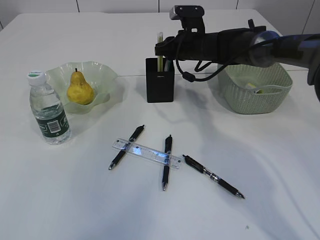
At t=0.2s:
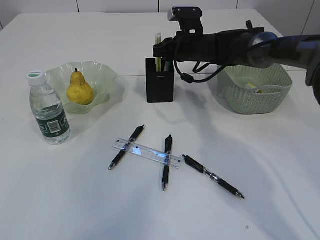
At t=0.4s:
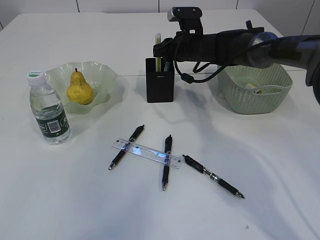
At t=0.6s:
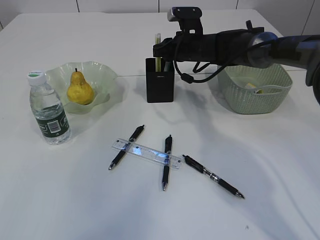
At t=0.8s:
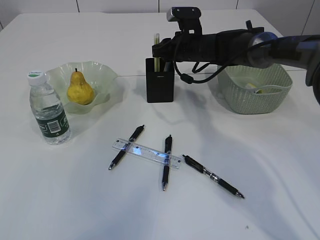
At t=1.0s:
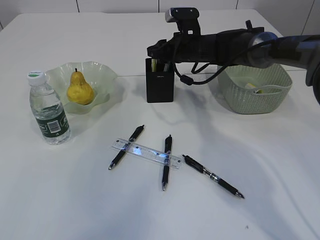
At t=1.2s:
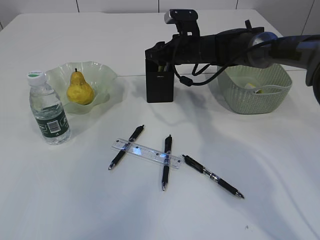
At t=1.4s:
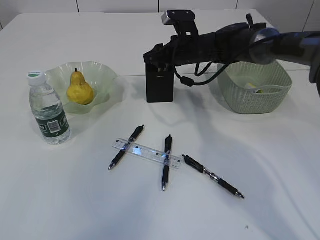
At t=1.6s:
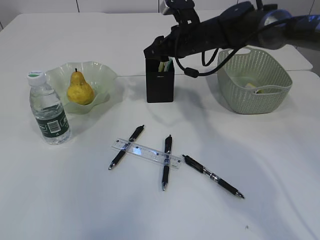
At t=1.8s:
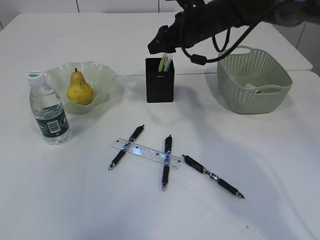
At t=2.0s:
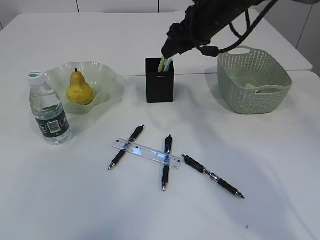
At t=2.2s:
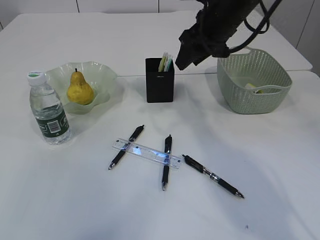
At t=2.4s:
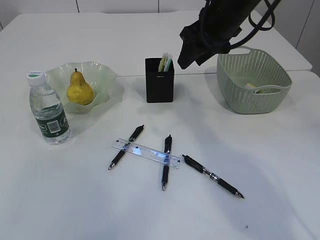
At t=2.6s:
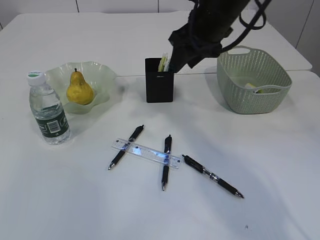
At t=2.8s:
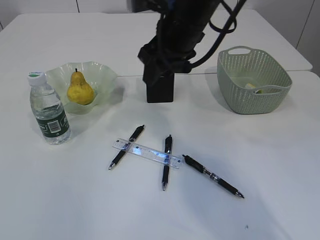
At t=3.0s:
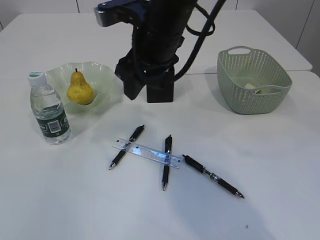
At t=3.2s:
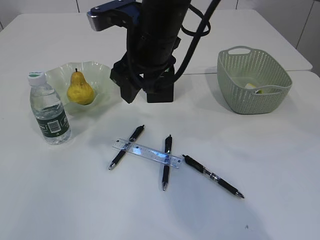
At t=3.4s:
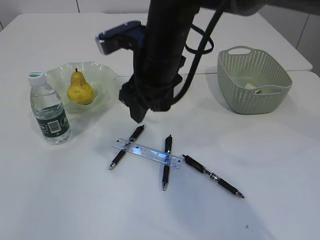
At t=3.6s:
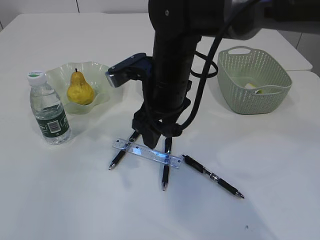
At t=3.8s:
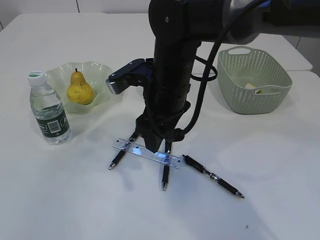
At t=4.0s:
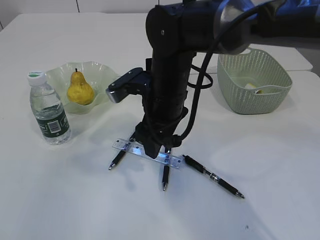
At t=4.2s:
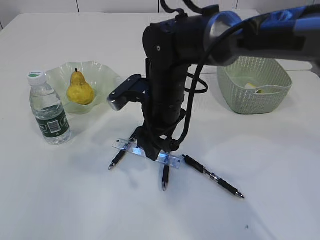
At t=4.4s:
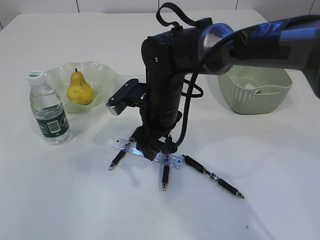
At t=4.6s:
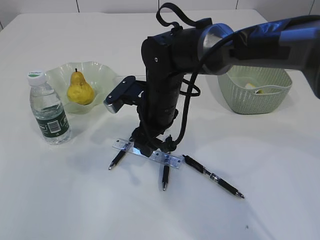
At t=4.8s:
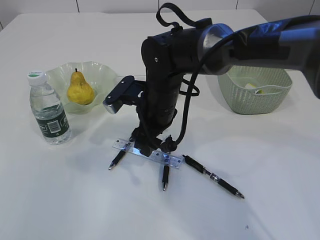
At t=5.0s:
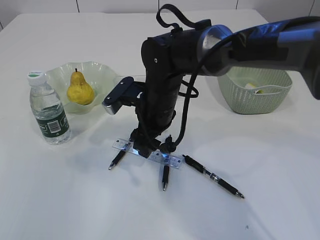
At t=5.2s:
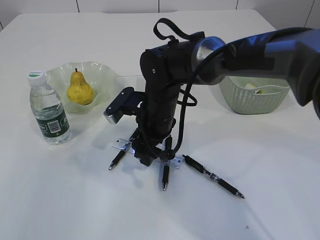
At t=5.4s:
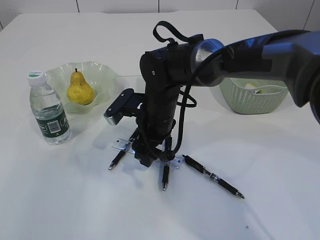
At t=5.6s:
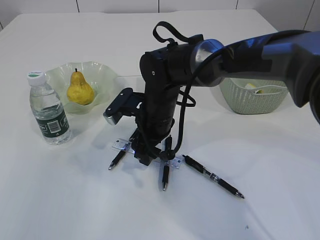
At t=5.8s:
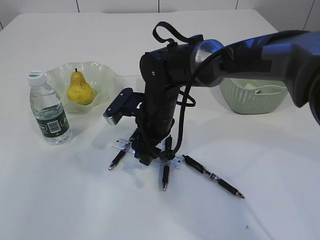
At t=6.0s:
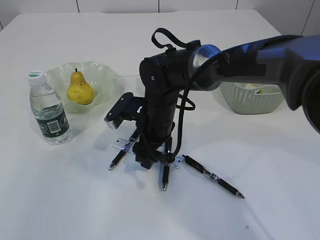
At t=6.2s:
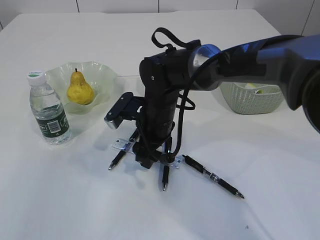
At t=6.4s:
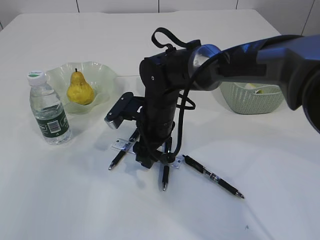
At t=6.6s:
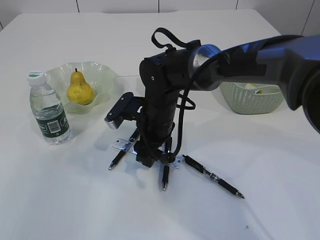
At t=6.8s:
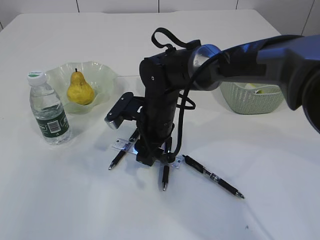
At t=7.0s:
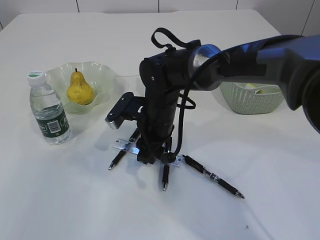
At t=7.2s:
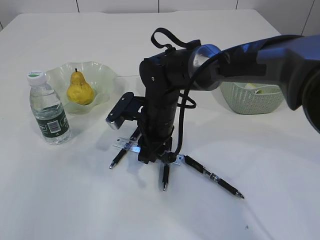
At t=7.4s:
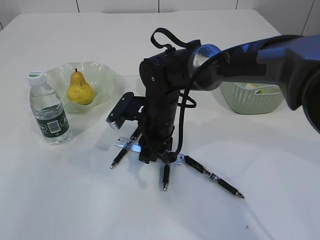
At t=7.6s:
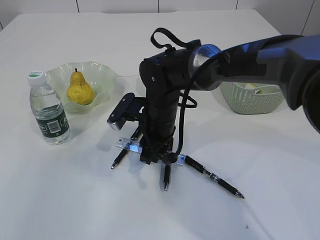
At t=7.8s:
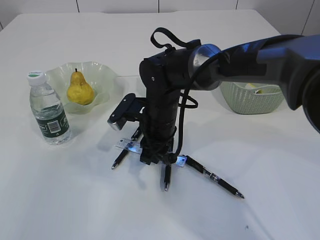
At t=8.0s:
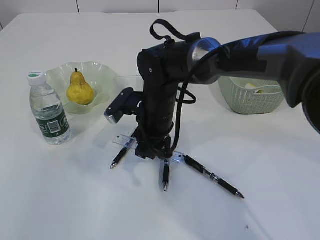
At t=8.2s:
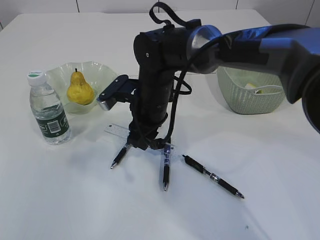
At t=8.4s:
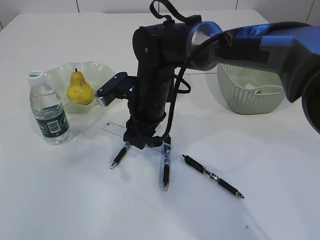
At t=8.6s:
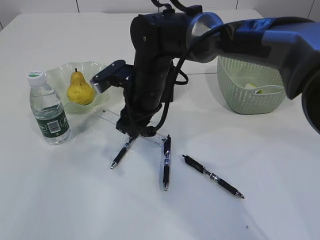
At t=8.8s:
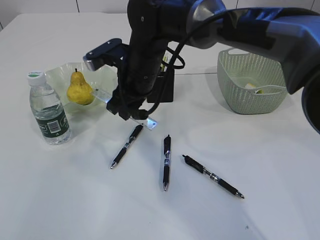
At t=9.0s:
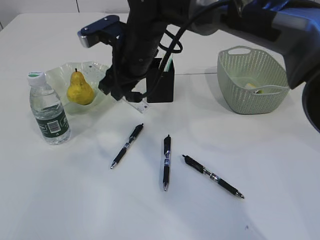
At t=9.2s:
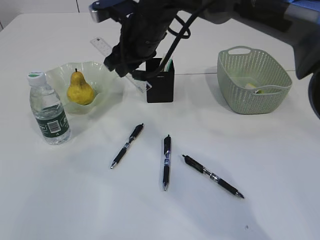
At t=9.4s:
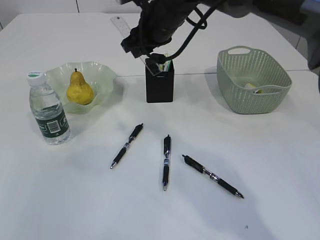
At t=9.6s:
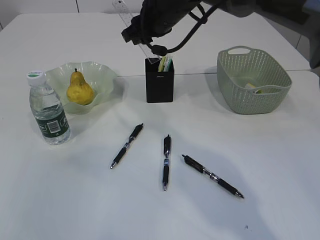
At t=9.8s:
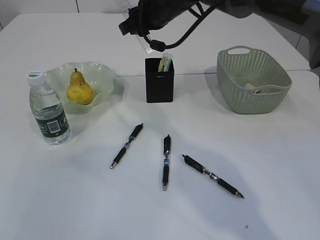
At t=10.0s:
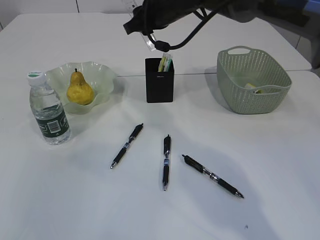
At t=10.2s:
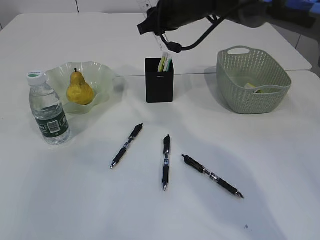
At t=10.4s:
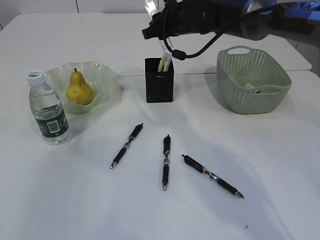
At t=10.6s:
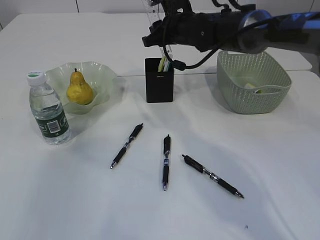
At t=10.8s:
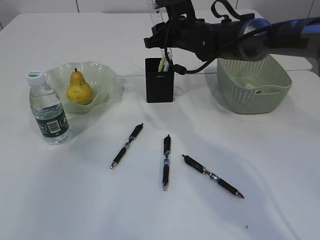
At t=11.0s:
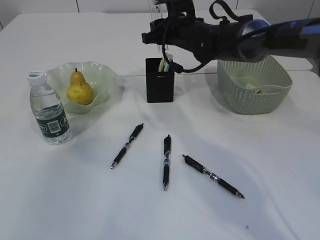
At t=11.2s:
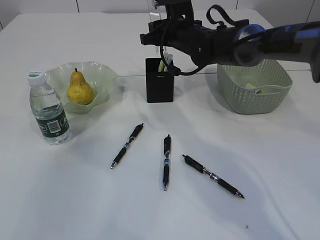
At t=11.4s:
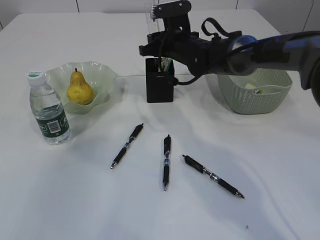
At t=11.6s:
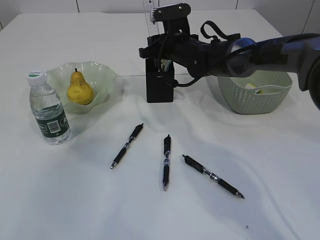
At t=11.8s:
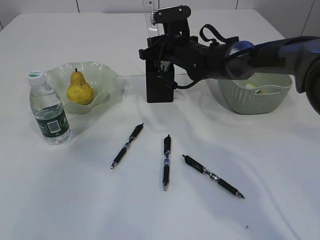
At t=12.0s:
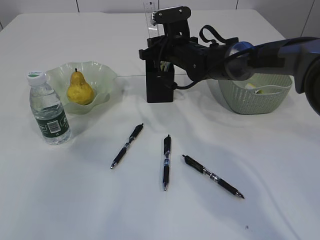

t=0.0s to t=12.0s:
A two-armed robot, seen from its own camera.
Step, t=2.0s to t=8.4s: pick up the ruler.
t=0.0s to t=1.6s: The right gripper opens its fingers.
t=1.6s to t=3.0s: The left gripper shifts some 15 cm backward. The right gripper travels backward, upward and to the left by about 20 cm.
t=3.0s to t=4.4s: The two grippers go about 15 cm downward.
t=4.4s to t=6.0s: The grippers make only small movements.
t=6.0s to t=7.6s: The right gripper closes its fingers.
t=7.6s to t=9.0s: The right gripper heads upward, covering roughly 10 cm.
t=9.0s to t=10.4s: The right gripper heads forward and to the right, covering roughly 15 cm.
t=10.4s to t=12.0s: The right gripper is displaced downward by some 10 cm.

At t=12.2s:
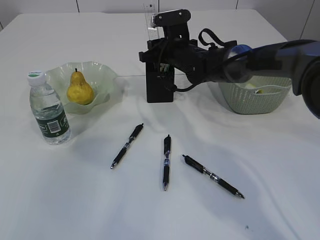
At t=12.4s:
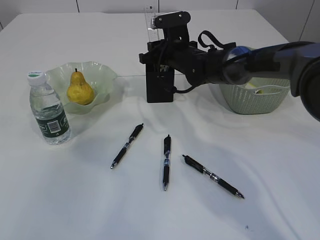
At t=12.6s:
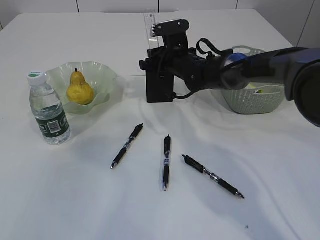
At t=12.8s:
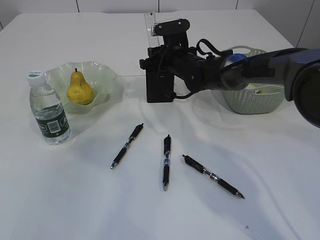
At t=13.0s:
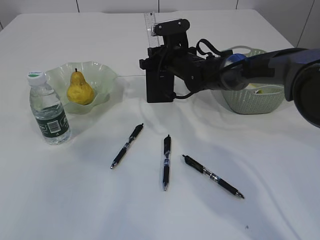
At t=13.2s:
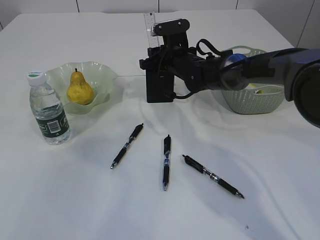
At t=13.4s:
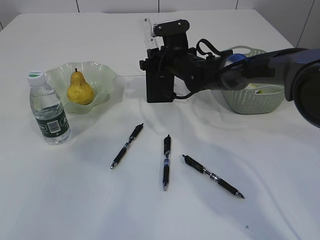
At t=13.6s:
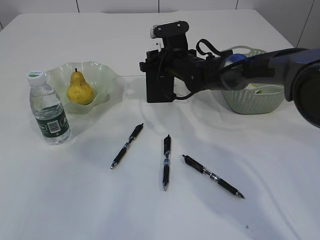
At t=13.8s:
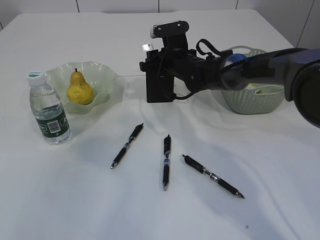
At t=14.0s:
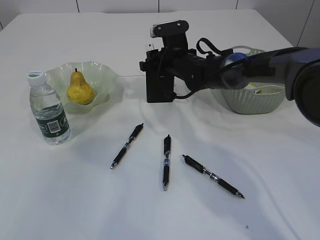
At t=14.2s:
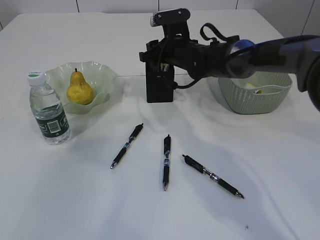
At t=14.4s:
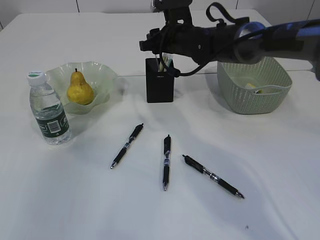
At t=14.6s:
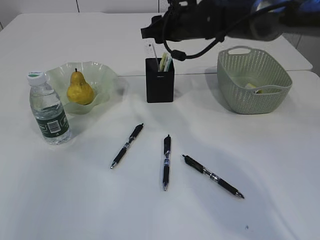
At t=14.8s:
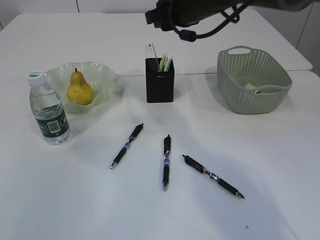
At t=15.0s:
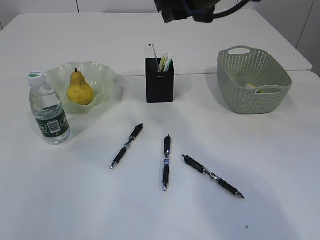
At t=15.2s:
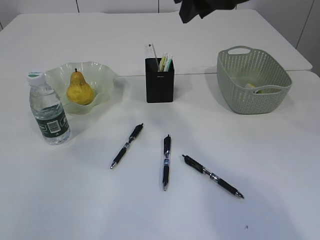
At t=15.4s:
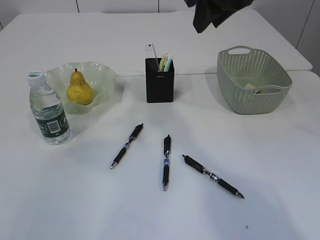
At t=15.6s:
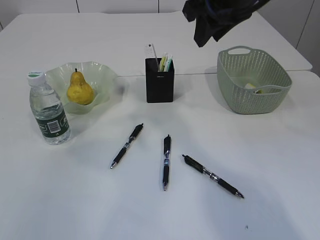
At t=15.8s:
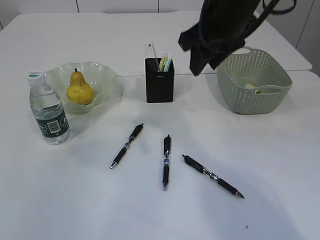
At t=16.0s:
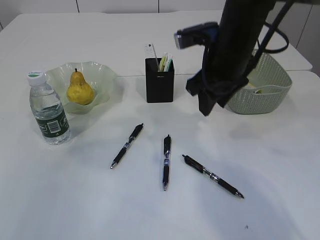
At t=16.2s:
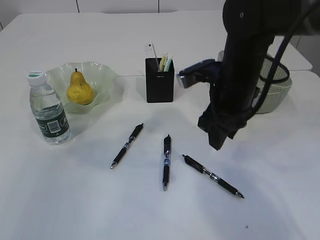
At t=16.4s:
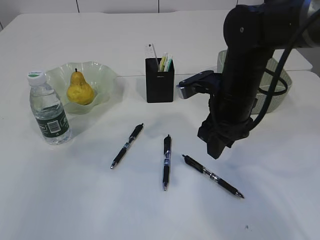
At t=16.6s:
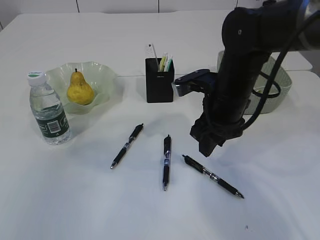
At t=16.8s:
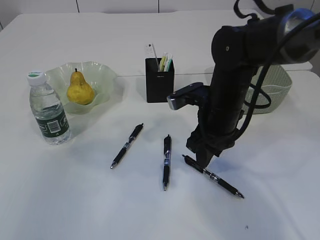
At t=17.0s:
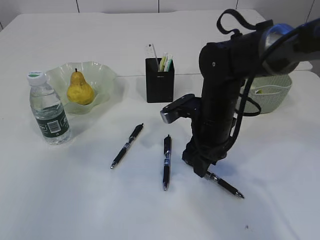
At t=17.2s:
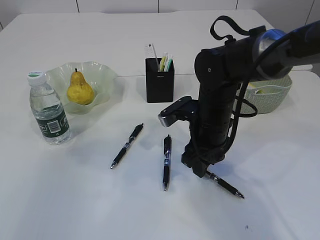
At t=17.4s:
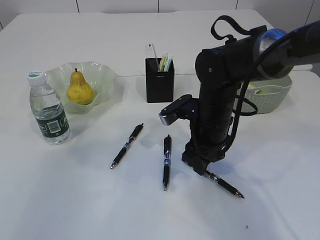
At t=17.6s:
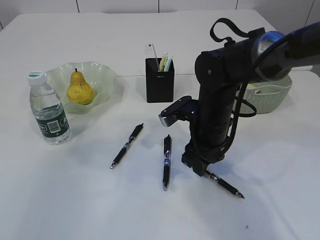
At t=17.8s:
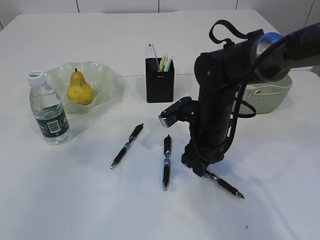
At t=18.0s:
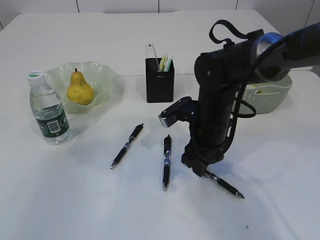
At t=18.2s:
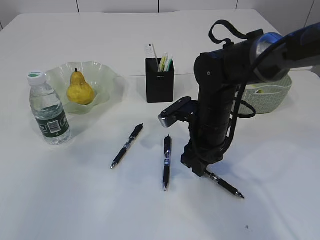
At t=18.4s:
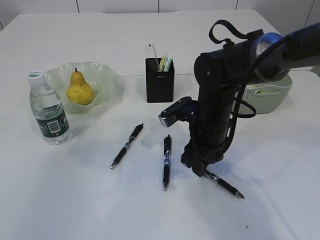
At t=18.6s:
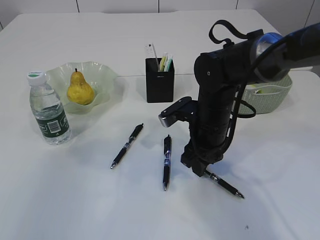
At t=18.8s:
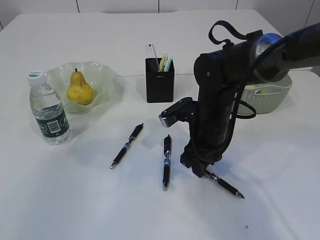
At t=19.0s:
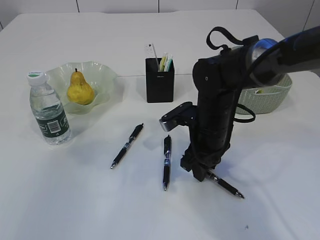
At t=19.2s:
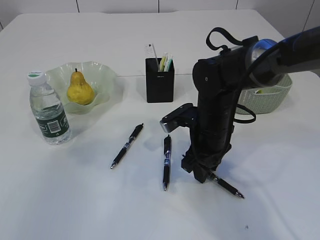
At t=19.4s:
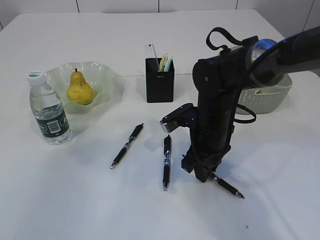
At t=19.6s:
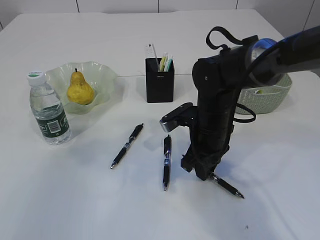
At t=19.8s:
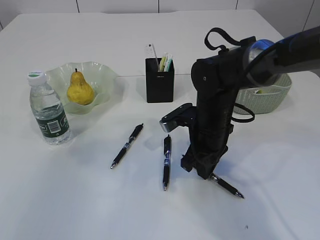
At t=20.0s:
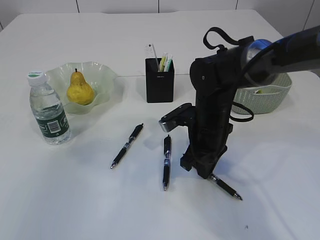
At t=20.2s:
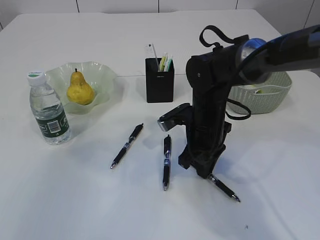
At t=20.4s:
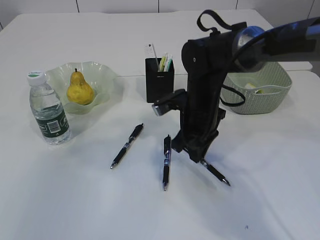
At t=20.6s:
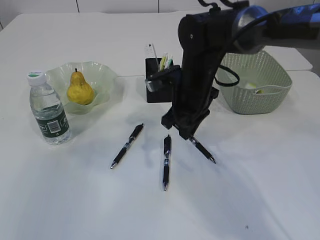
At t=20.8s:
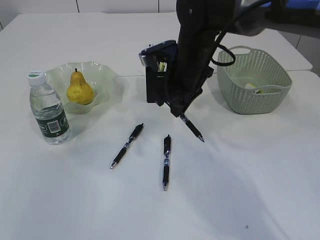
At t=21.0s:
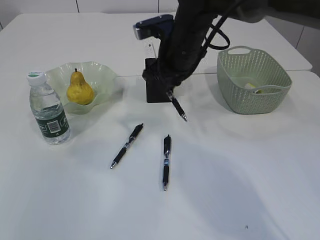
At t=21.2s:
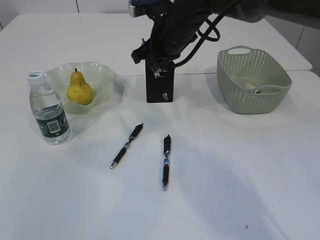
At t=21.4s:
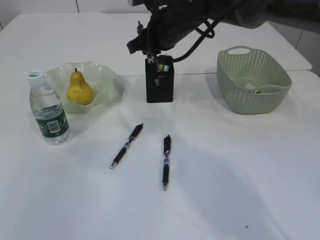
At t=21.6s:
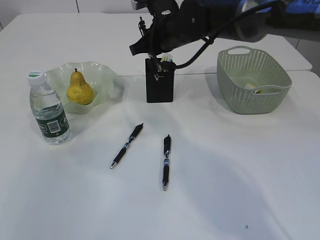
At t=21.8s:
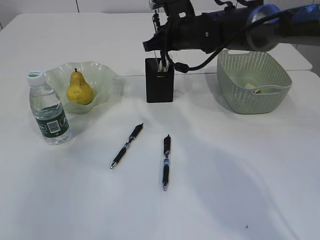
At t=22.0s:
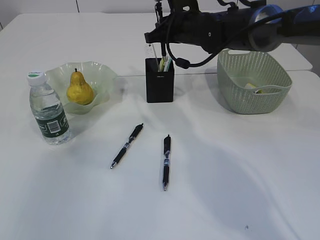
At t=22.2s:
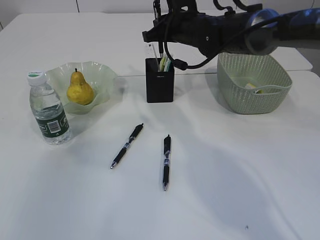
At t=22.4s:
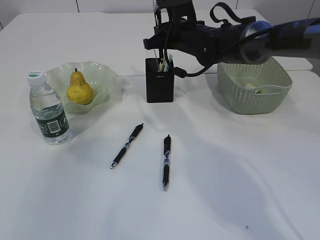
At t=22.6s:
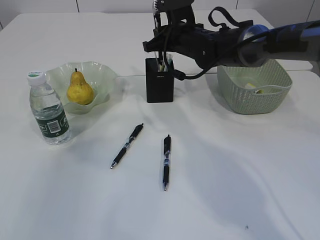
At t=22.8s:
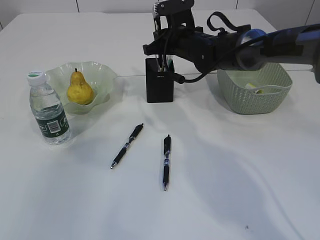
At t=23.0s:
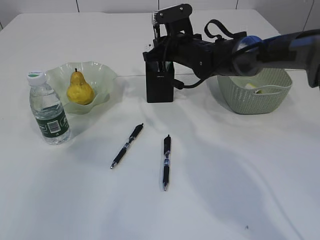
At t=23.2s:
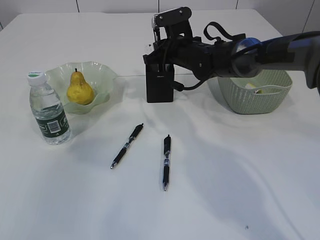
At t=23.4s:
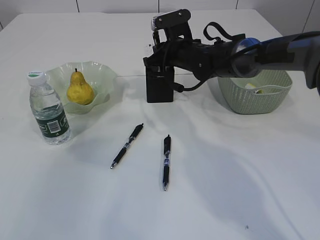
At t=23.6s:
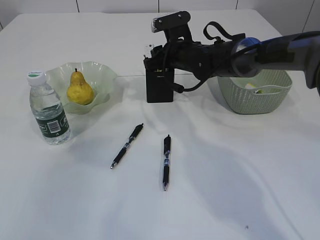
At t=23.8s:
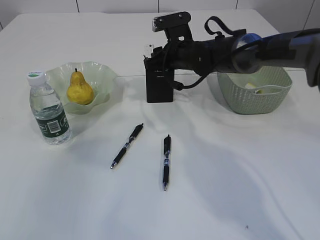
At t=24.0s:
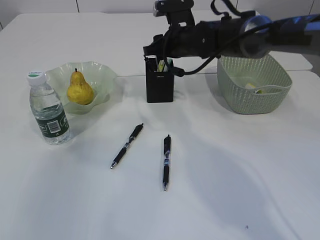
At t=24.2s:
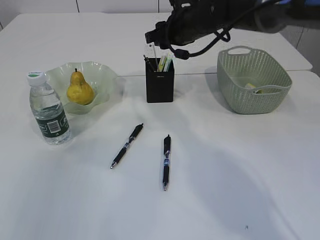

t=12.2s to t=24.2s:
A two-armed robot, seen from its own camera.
Step, t=12.2s to t=14.6s: Place the ruler into the pen holder.
Step, t=14.8s to t=20.6s: Pick up the pen with right arm.
t=12.2s to t=13.8s: There are only small adjustments of the grippers.
t=13.8s to t=15.2s: The right gripper is displaced upward and backward by approximately 25 cm.
t=15.2s to t=16.6s: The right gripper moves downward, about 20 cm.
t=16.6s to t=18.2s: The right gripper heads downward, covering some 5 cm.
t=18.2s to t=19.8s: The grippers stay close to where they were, moving slightly.
t=19.8s to t=21.2s: The right gripper shifts some 15 cm upward and forward.
t=21.2s to t=22.6s: The right gripper travels forward by about 5 cm.
t=22.6s to t=24.2s: The right gripper opens its fingers.
